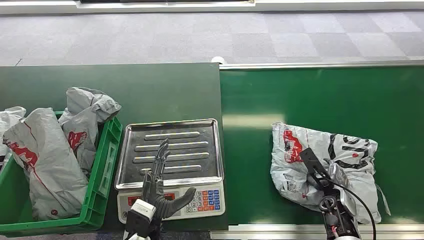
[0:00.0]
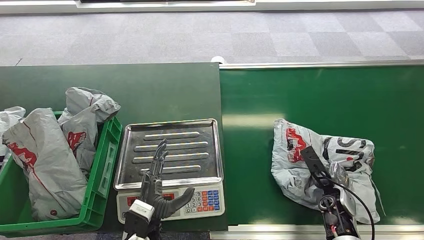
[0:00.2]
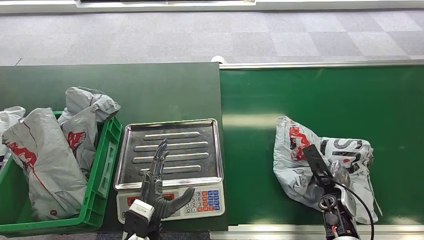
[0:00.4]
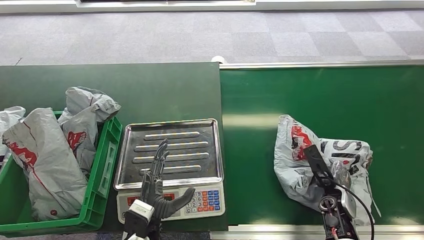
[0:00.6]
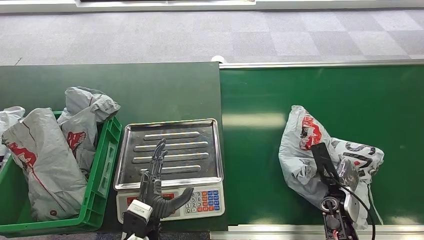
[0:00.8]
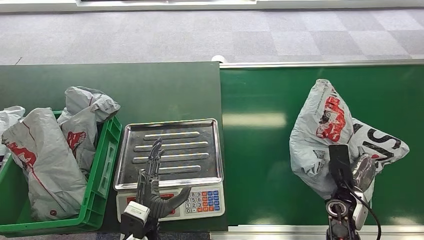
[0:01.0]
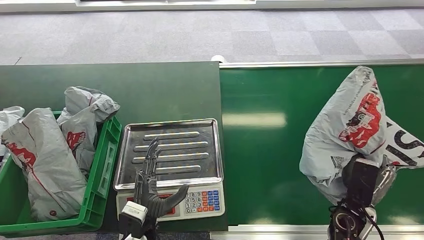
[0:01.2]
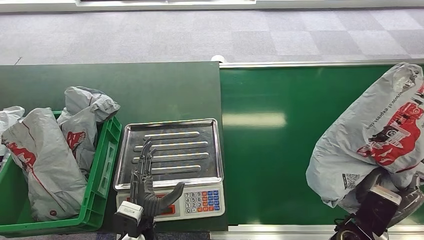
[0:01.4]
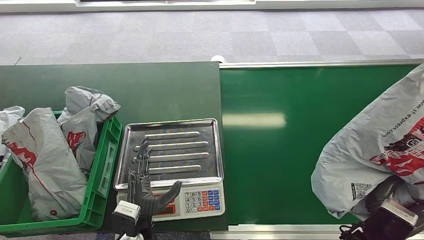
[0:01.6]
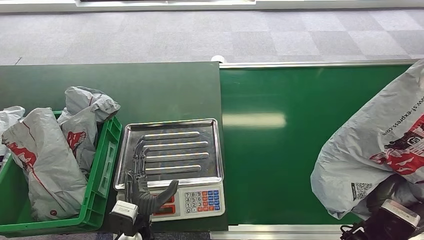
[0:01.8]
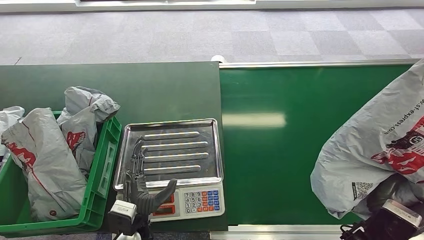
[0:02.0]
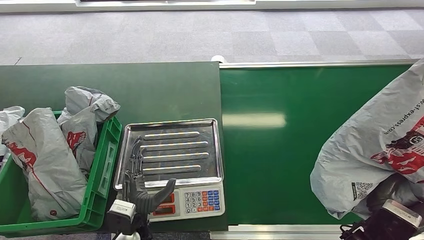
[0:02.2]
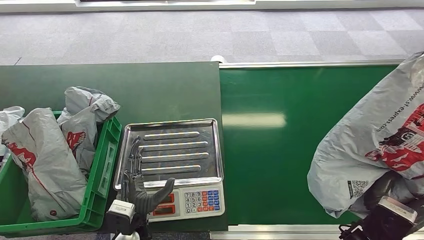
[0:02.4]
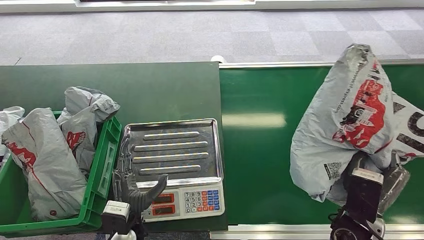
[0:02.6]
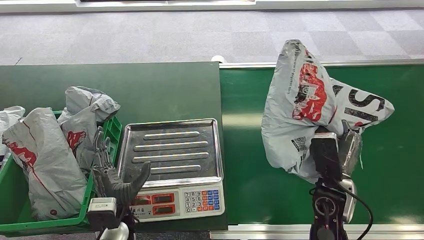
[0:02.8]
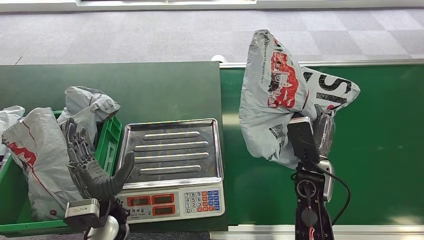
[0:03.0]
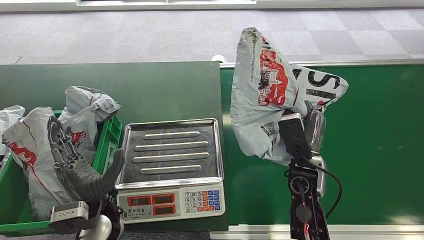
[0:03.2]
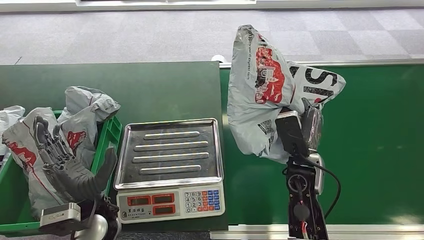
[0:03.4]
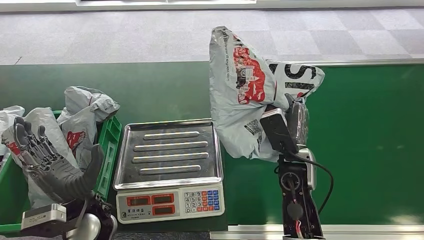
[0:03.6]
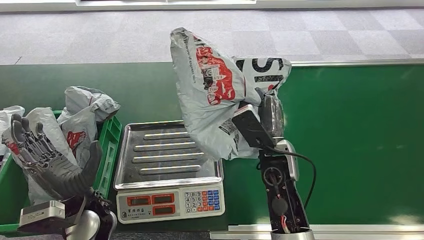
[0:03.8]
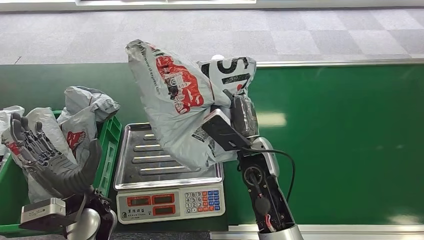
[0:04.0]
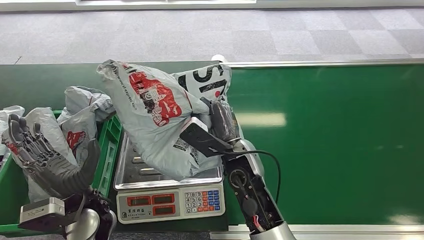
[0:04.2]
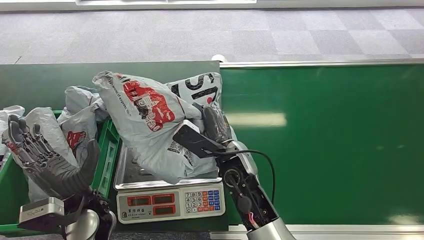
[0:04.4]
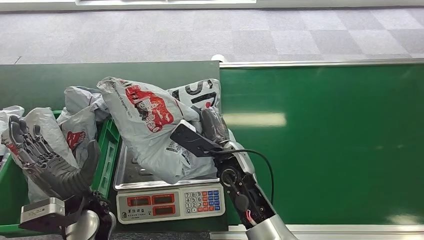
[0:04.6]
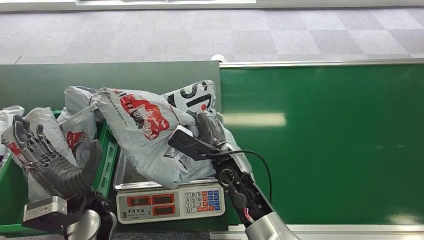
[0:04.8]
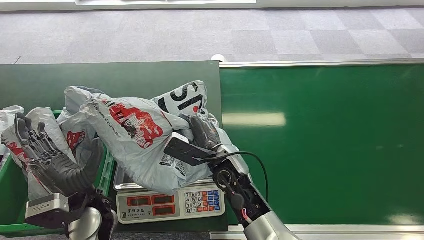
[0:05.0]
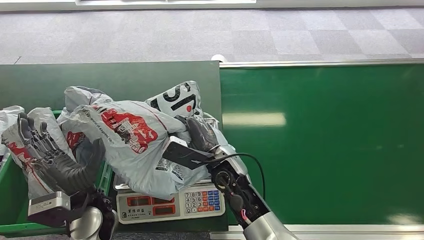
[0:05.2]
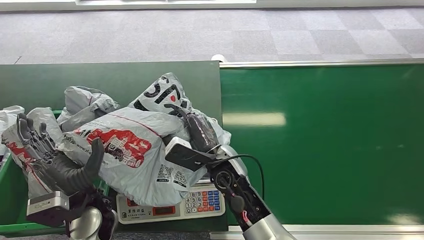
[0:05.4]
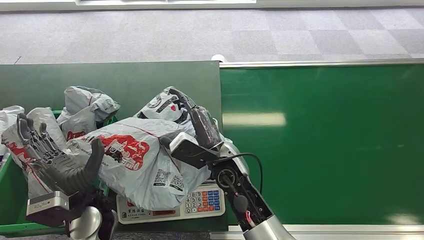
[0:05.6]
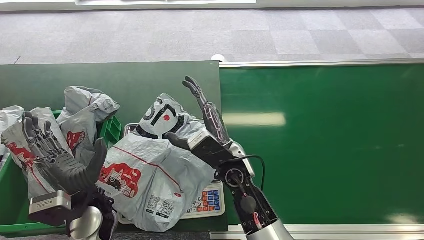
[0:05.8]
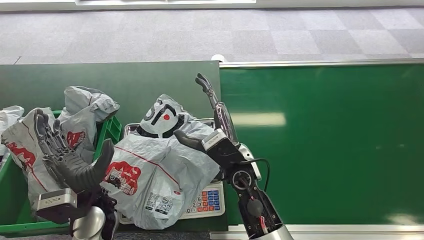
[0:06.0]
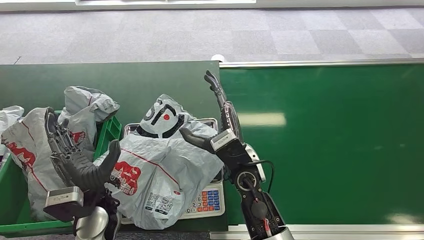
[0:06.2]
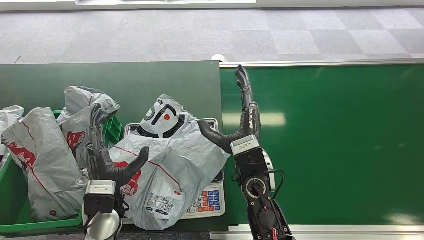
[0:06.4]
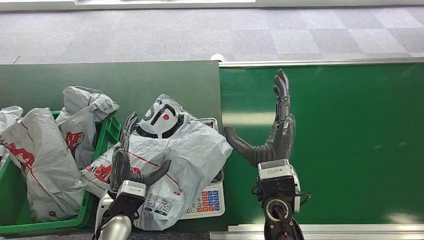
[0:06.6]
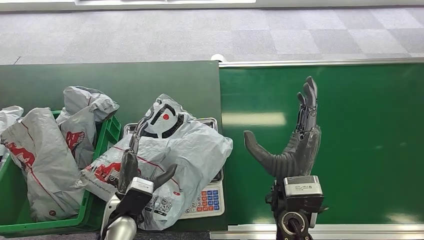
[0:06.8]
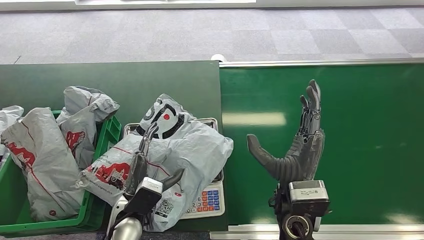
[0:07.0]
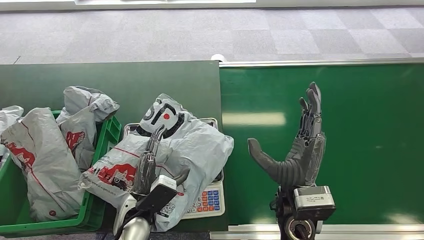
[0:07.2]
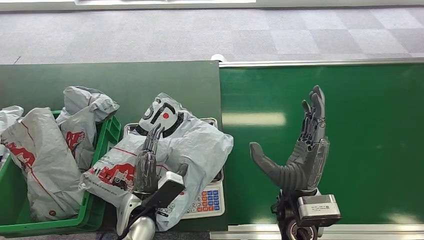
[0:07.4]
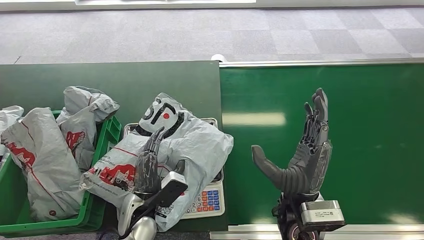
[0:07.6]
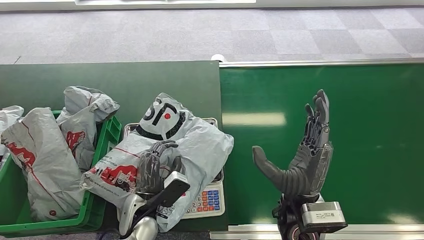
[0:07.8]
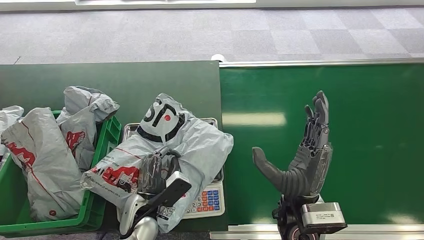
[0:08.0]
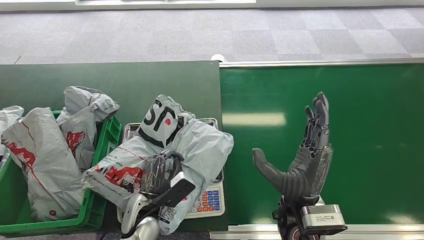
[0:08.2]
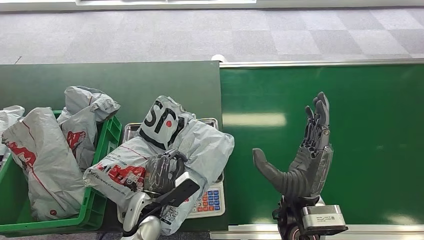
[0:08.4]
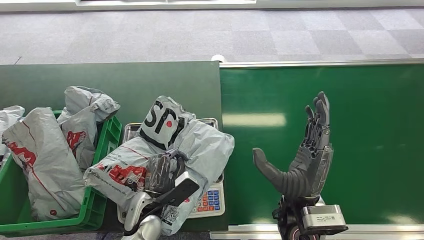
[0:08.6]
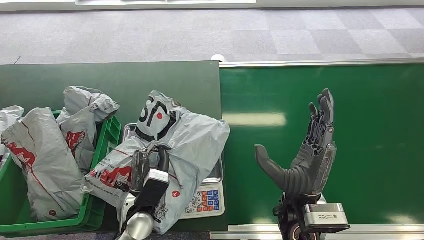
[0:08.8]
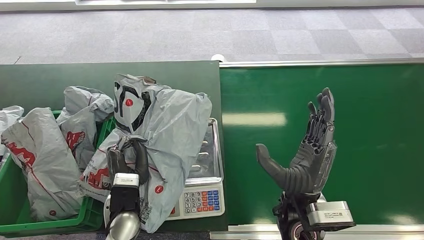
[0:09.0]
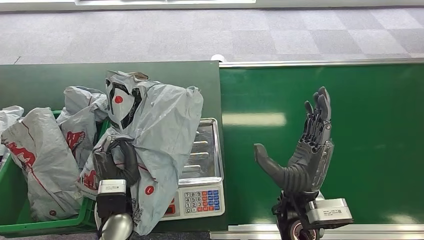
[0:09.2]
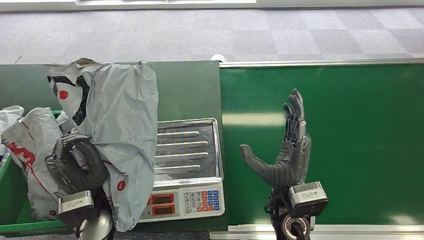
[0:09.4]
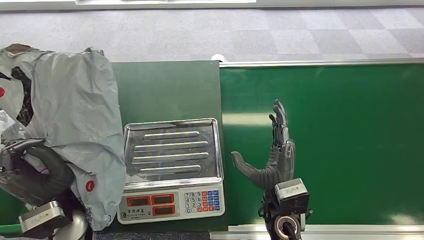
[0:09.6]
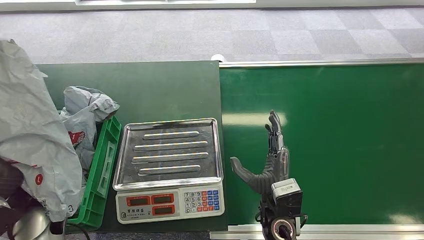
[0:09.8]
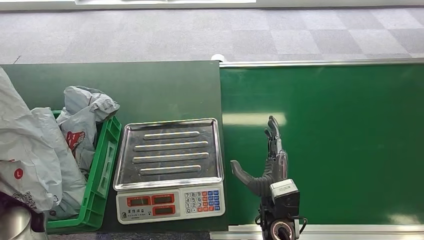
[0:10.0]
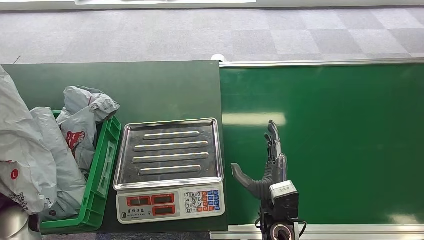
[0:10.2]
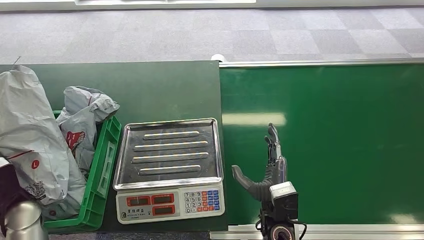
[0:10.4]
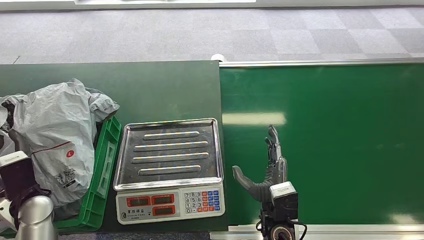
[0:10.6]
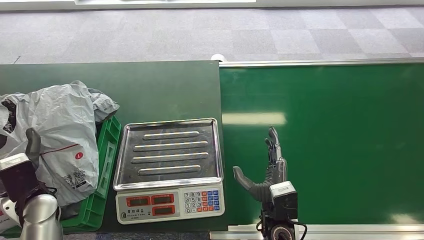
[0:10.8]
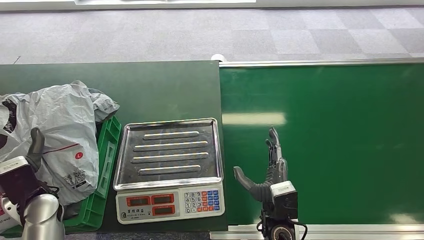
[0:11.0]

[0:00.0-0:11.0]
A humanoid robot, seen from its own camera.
Step, 0:00.0 to 0:01.8: Pick up the package from the conveyor belt.
Step, 0:03.4 to 0:05.8: Place the package onto the inbound machine.
Step, 0:08.6 to 0:09.4: Pick up the package from the inbound machine.
Step, 0:10.0 to 0:11.0: Place the package into the parcel locker.
0:06.2 to 0:07.8: The left hand travels to the right and downward by some 10 cm. Meanwhile the right hand shifts about 10 cm to the right and backward.

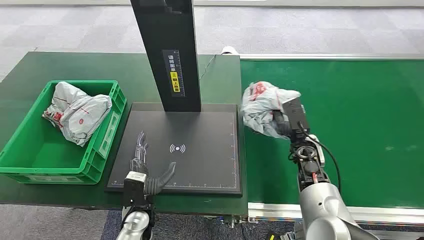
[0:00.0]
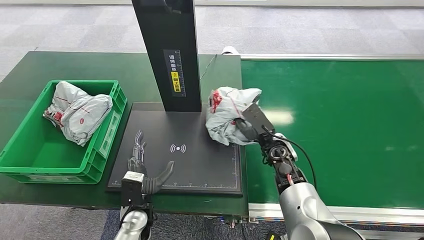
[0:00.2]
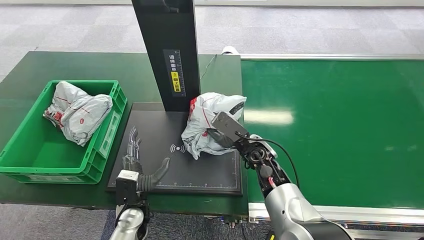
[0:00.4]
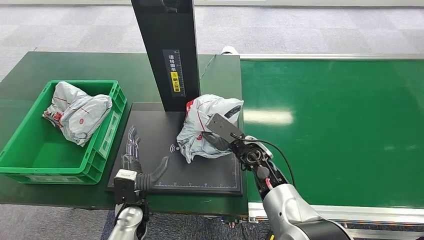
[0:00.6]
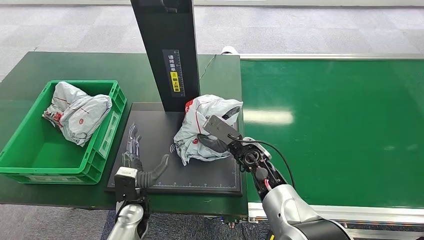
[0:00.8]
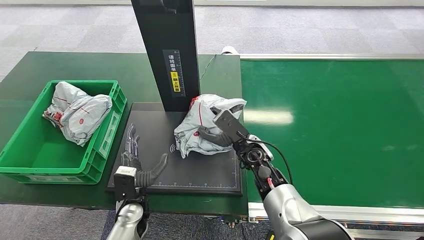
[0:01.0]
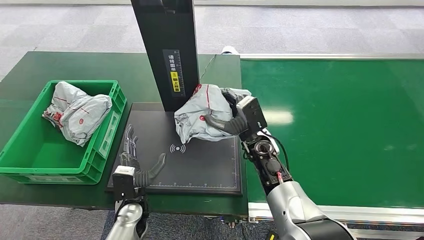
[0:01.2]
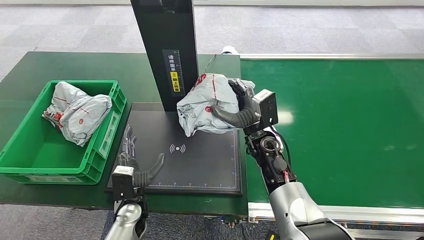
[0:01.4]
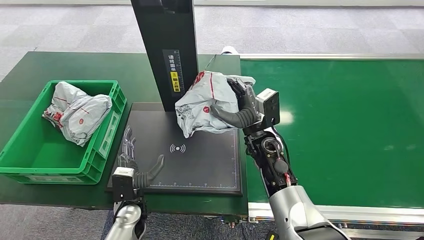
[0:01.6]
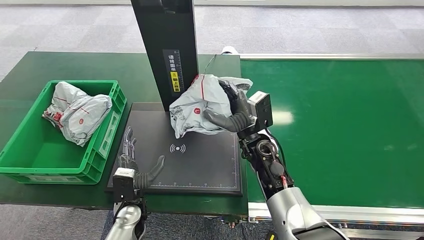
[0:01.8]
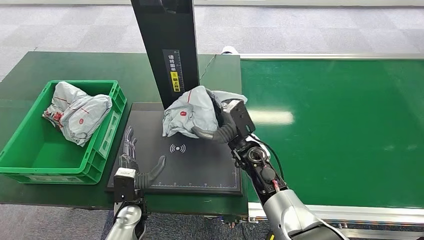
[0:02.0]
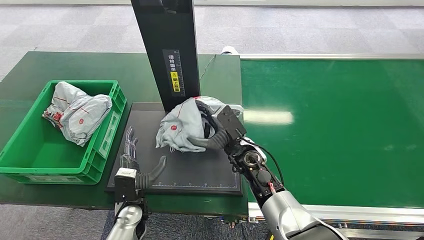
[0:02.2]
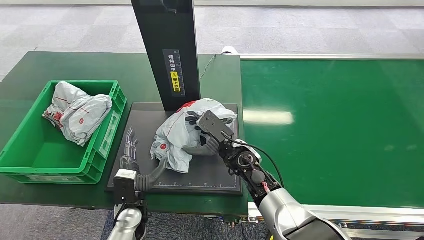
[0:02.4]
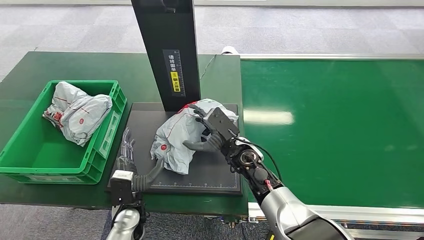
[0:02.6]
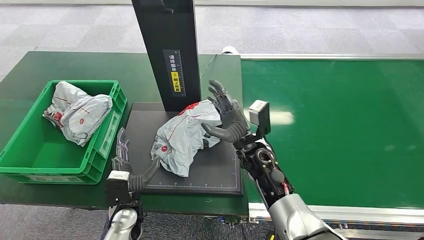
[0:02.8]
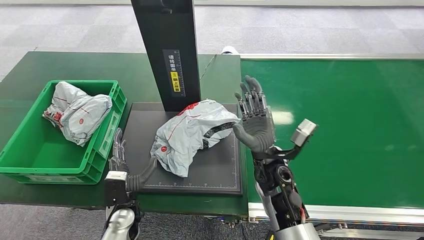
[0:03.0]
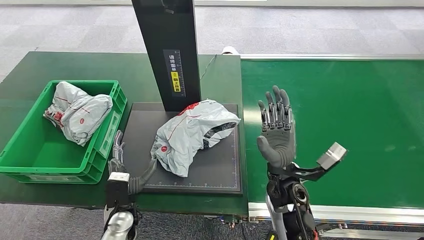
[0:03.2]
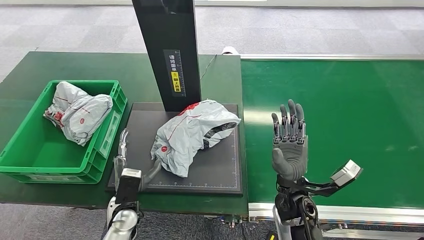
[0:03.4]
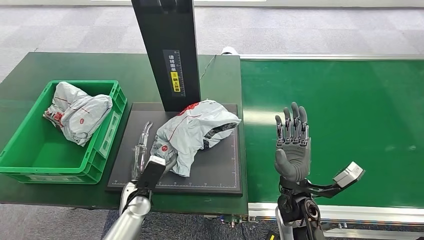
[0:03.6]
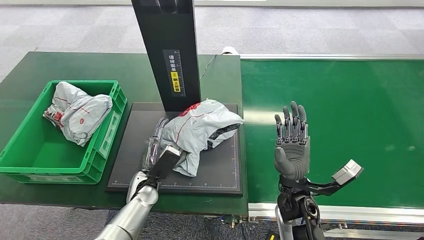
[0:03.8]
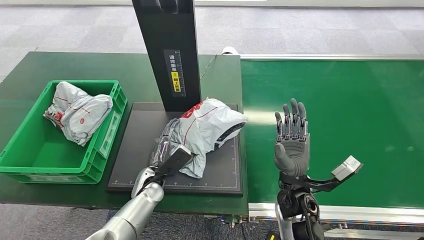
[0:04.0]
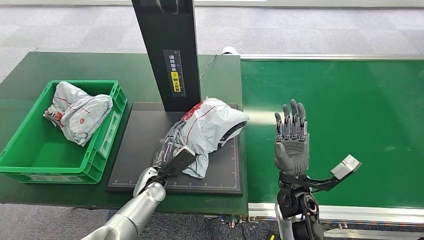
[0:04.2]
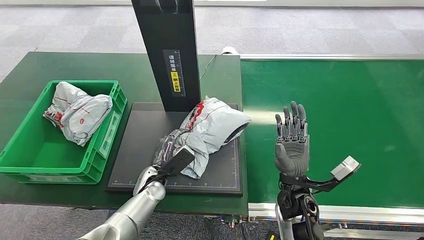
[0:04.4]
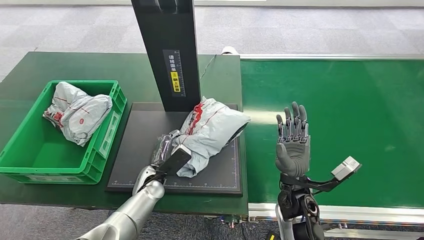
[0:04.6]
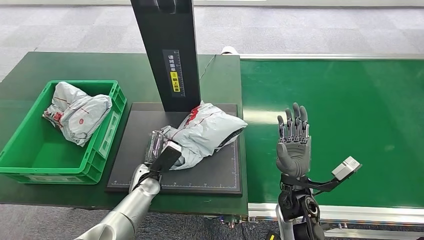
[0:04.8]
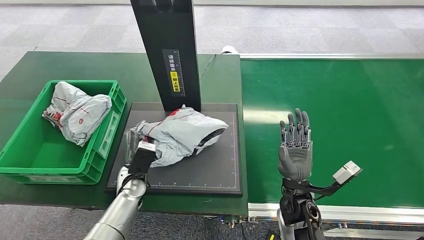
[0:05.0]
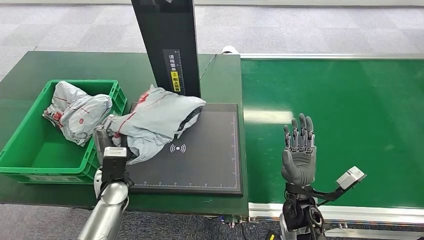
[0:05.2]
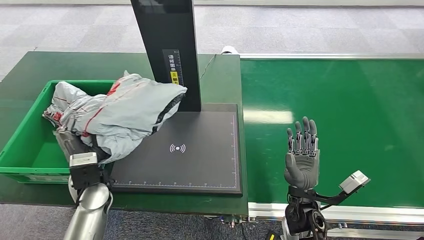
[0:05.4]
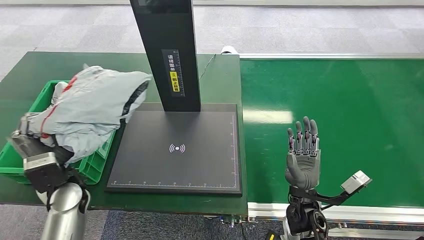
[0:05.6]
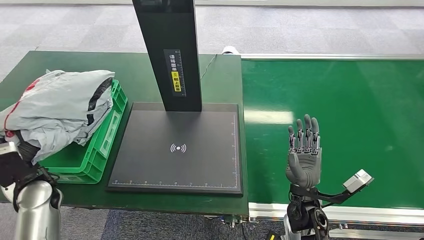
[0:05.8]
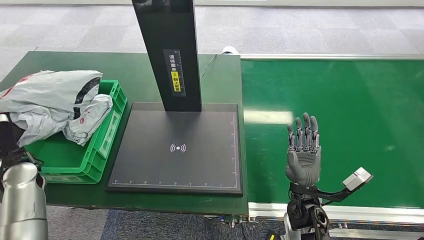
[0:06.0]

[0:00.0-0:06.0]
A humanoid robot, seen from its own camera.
0:01.6 to 0:03.0: The right hand is displaced backward by roughly 5 cm.
0:03.0 to 0:04.4: The right hand is displaced to the right and backward by approximately 10 cm. Meanwhile the left hand moves forward, some 10 cm.
